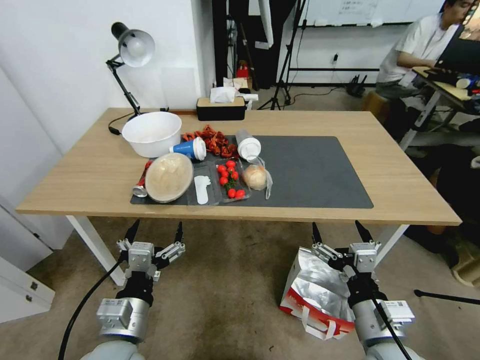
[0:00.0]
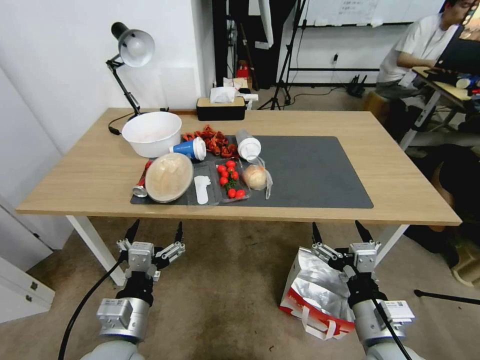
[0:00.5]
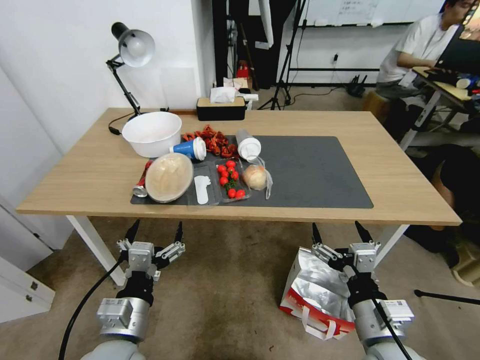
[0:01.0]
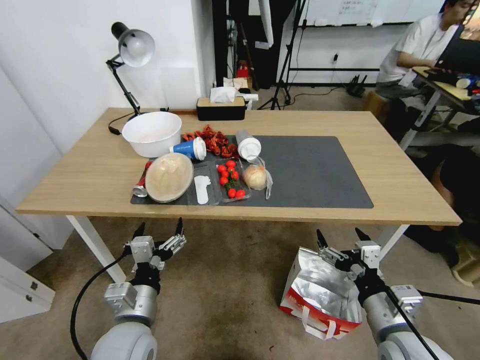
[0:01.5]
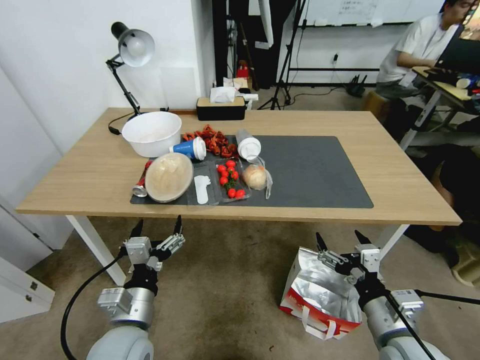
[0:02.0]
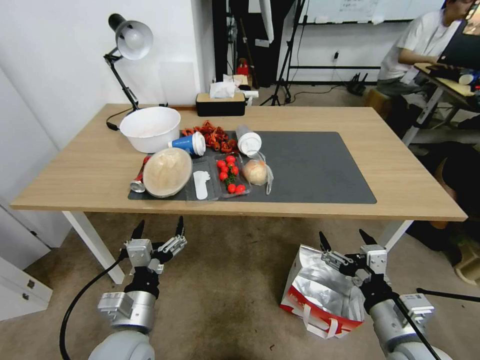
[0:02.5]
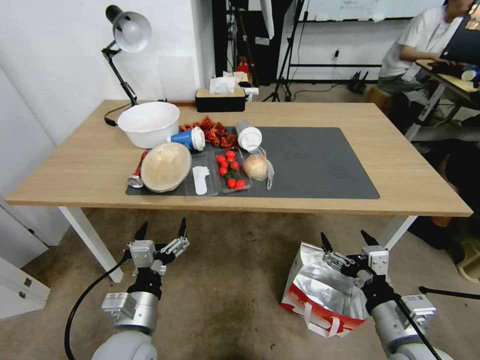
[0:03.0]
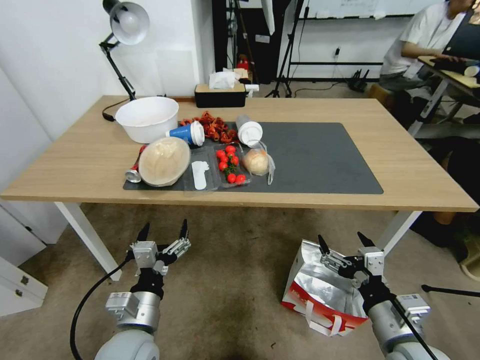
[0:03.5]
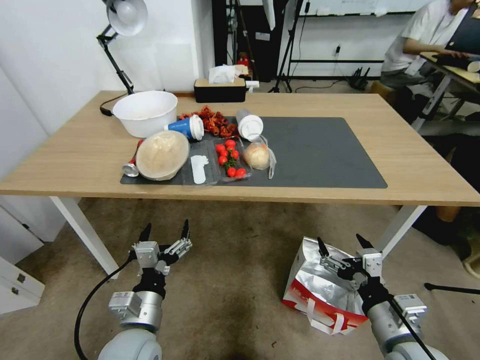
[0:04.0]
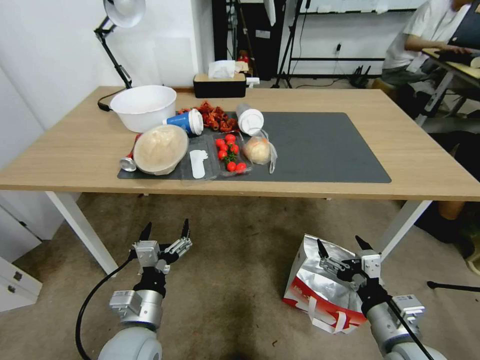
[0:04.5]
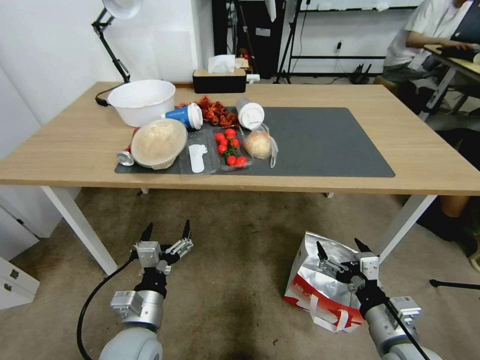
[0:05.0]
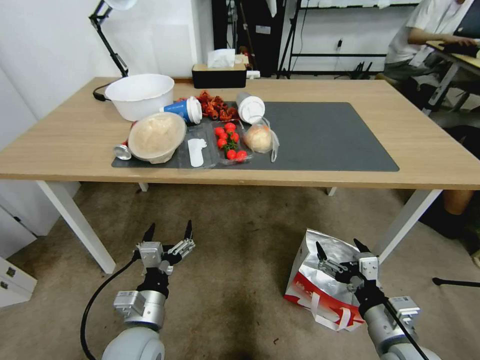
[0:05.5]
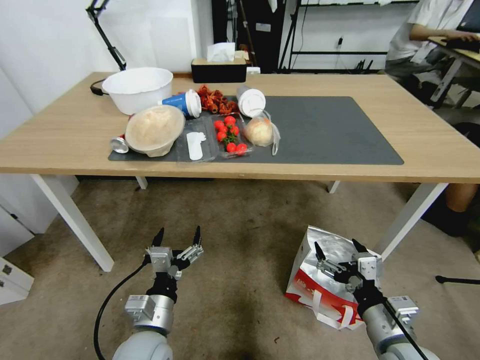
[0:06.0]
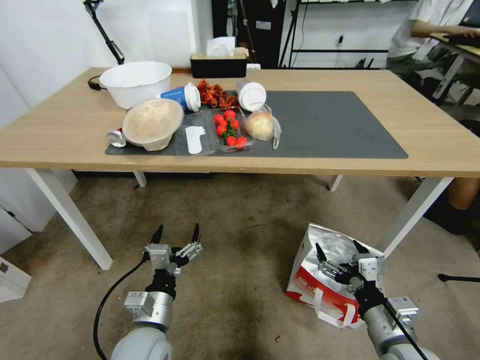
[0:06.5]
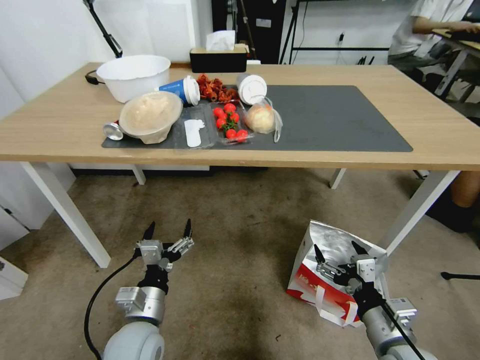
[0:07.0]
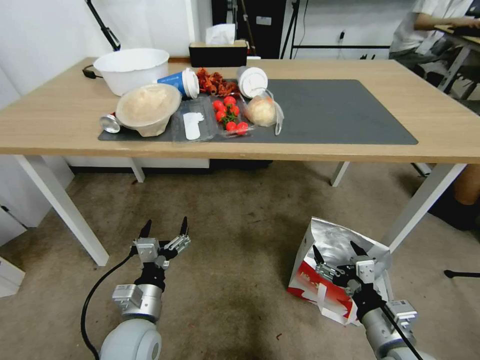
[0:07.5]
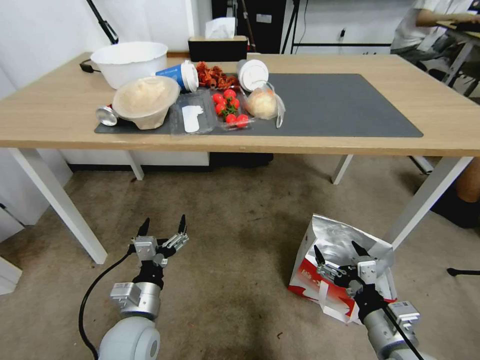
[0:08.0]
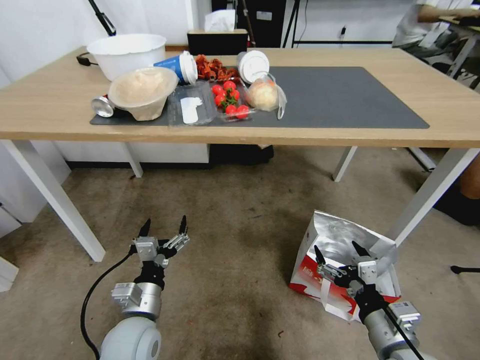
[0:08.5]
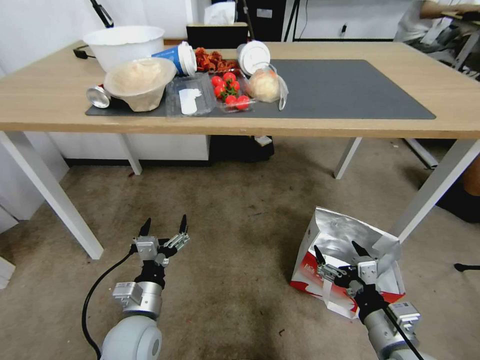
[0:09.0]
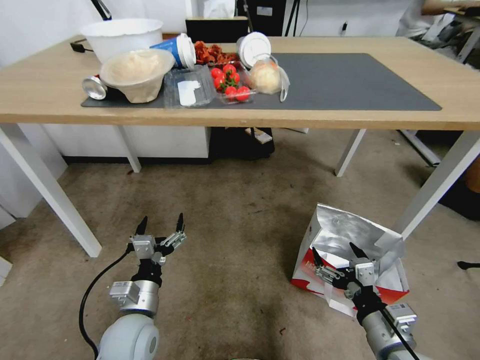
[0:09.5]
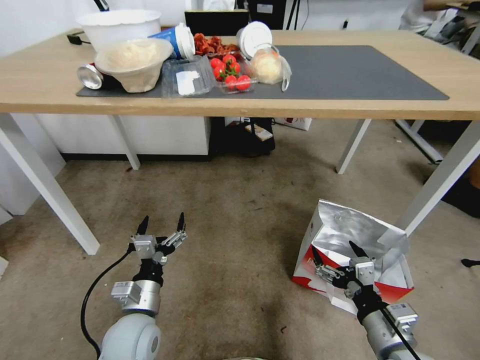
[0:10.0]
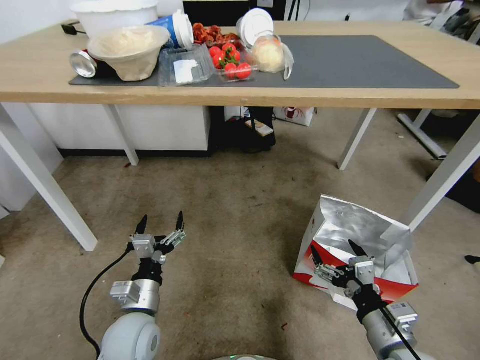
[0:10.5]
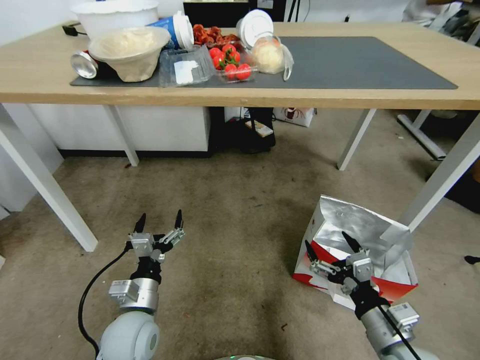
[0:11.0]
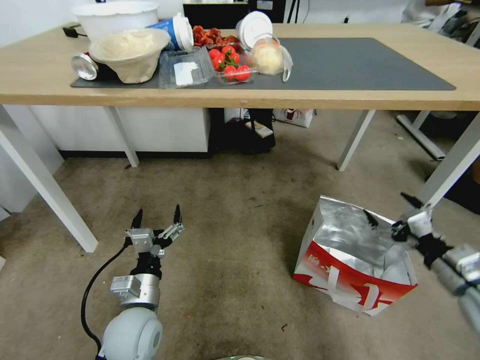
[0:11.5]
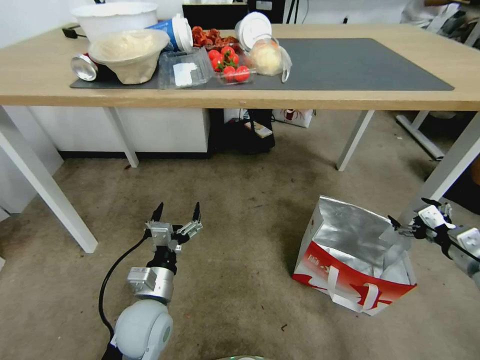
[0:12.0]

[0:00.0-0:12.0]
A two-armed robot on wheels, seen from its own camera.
Task of the whole recording: Pick up the food delivery bag from the floor and place it on the table.
10.0 to 12.0 s: The right gripper goes roughly 25 cm to the right and forward.

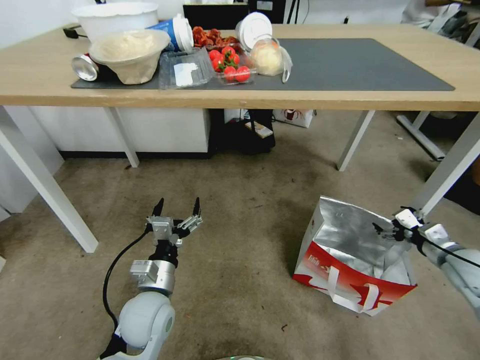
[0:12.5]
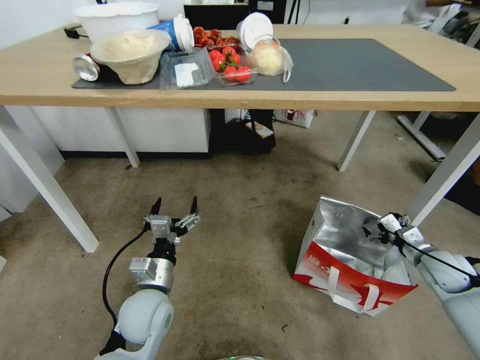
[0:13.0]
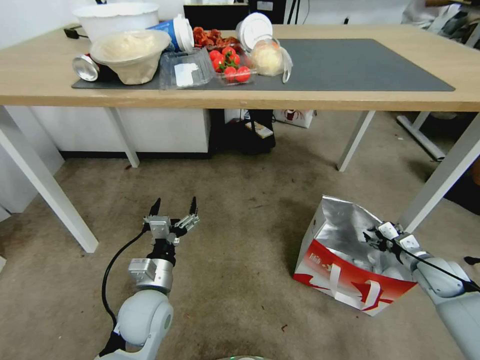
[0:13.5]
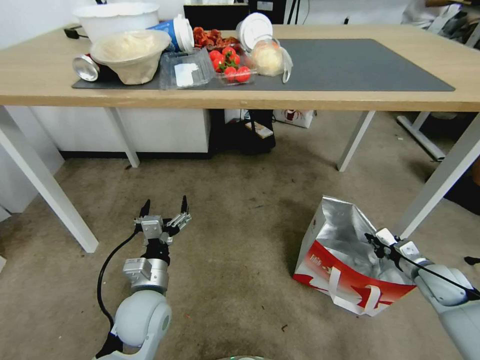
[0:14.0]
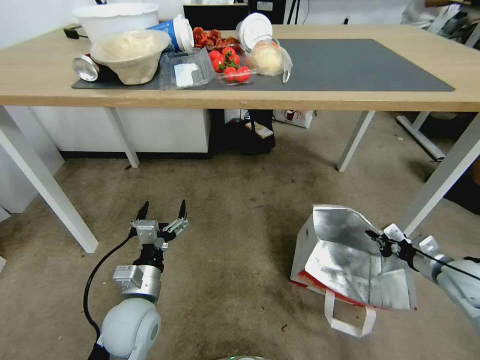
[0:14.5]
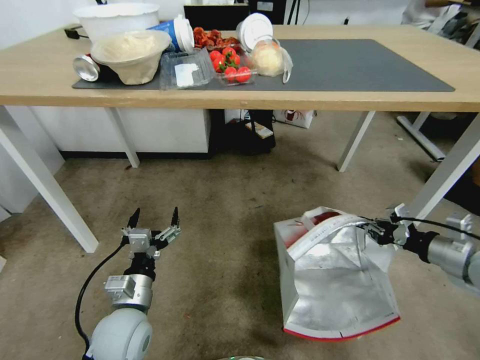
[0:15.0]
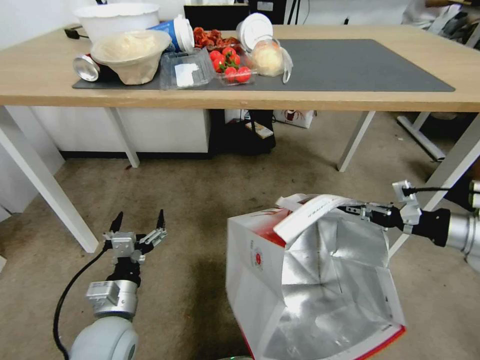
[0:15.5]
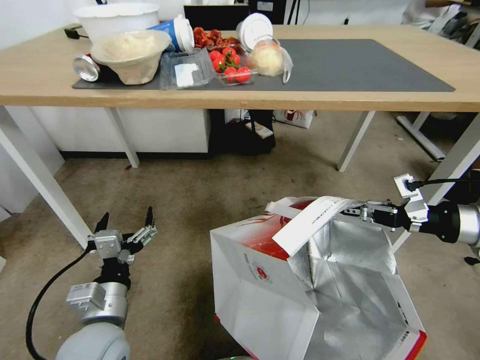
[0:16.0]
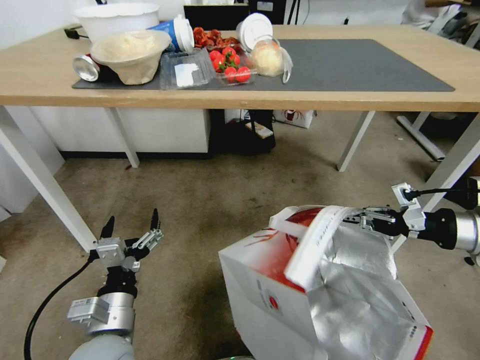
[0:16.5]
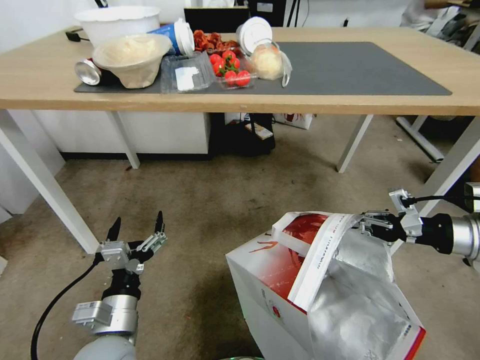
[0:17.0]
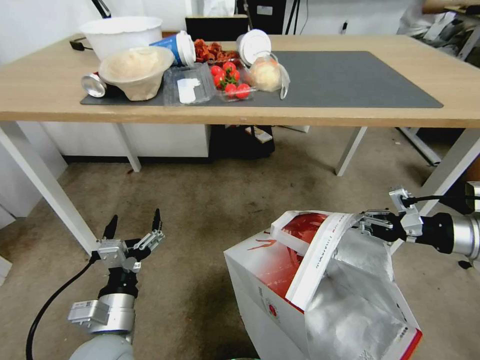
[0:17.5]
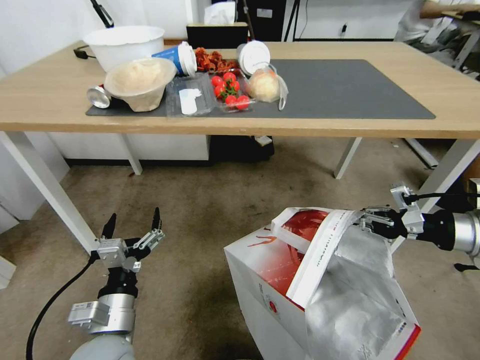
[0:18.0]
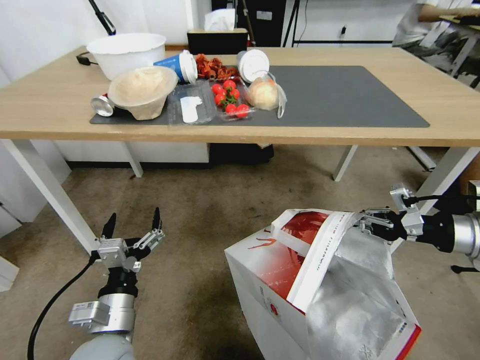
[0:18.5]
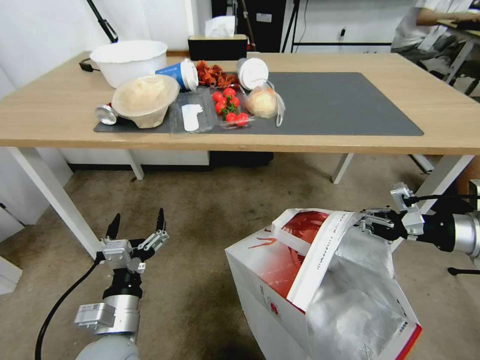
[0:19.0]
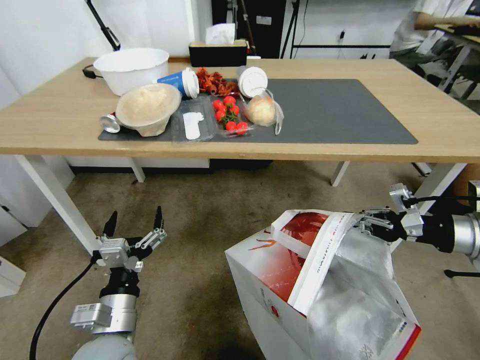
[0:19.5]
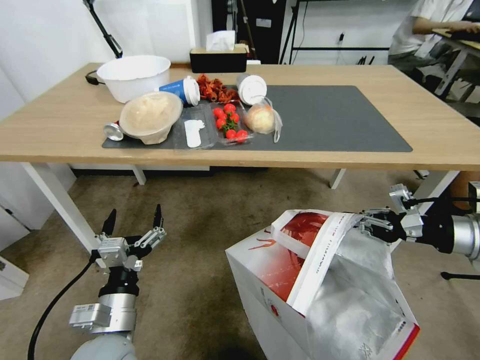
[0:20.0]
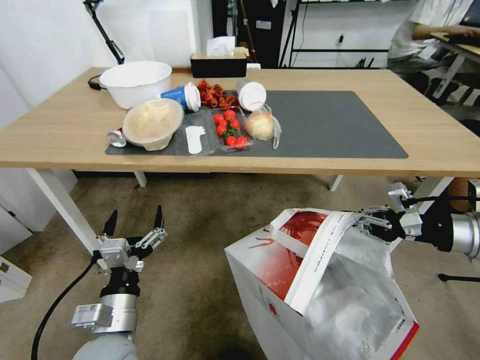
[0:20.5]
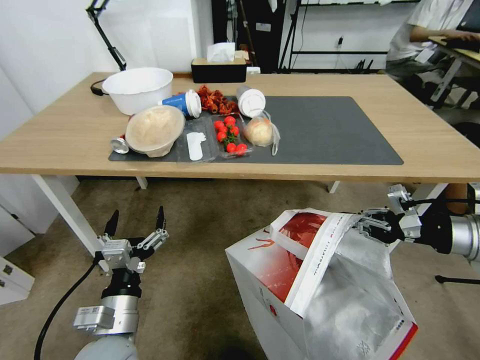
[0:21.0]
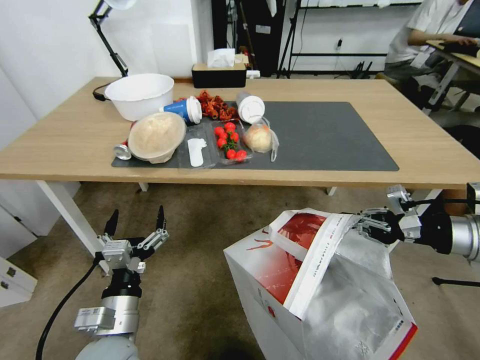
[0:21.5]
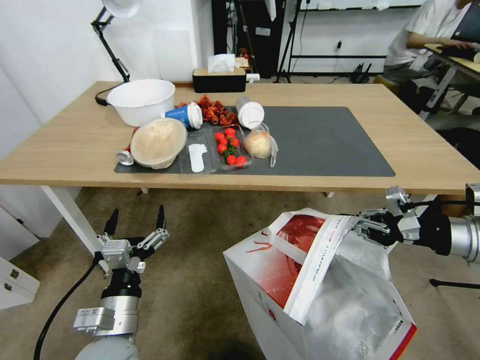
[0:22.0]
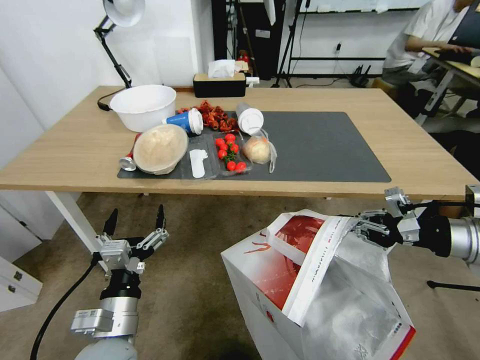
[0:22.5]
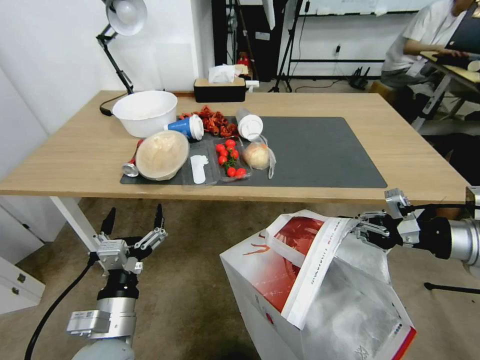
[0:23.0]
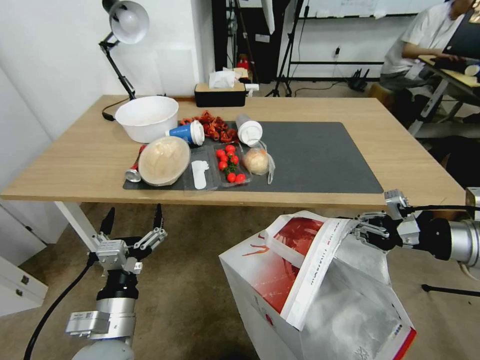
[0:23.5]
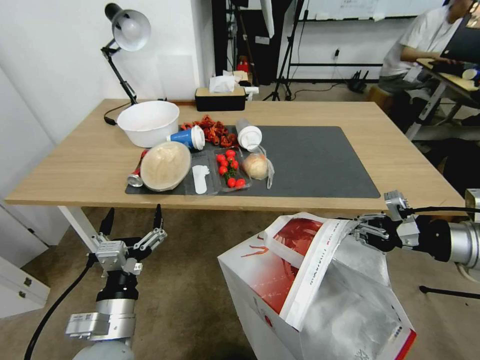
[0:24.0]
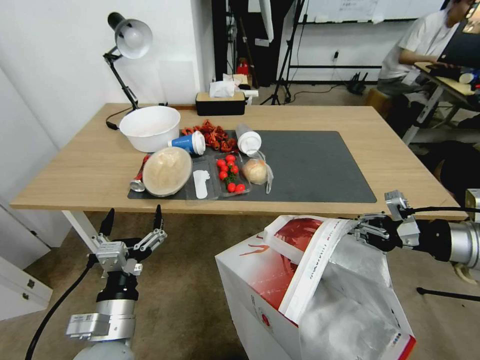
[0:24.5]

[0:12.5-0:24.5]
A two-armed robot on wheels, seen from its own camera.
Task of the whole recording: Pick up the food delivery bag from the floor and place it on the table.
12.5 to 14.5 s: The right gripper moves approximately 10 cm downward and comes back, and closes up.
14.5 to 16.5 s: The right gripper heads upward, covering roughly 20 cm. Meanwhile the left gripper travels backward by roughly 5 cm.

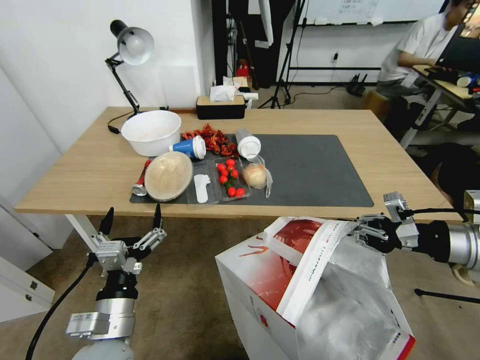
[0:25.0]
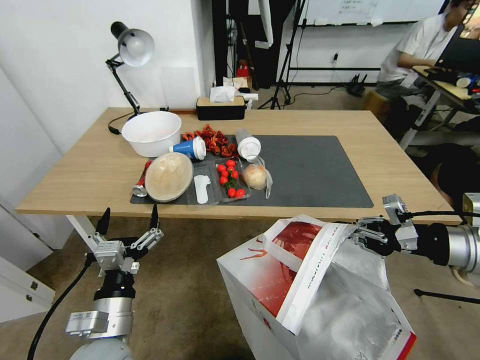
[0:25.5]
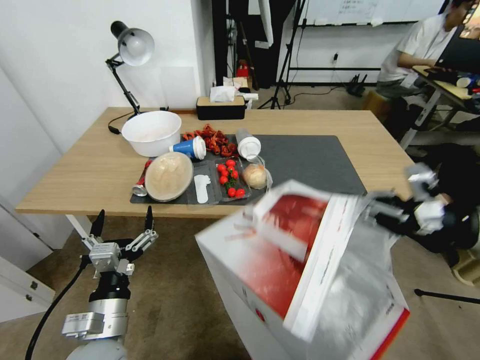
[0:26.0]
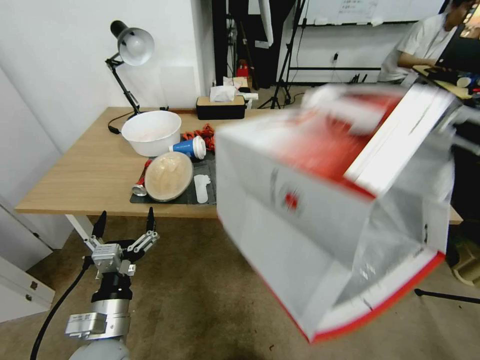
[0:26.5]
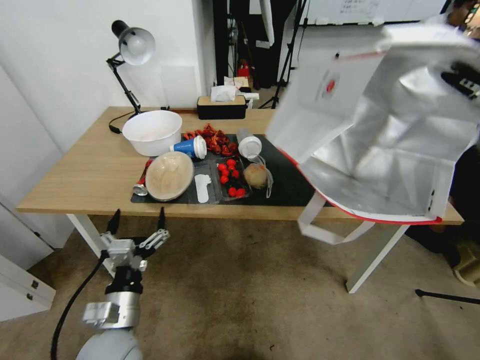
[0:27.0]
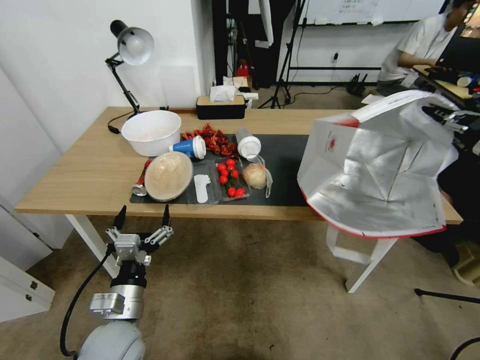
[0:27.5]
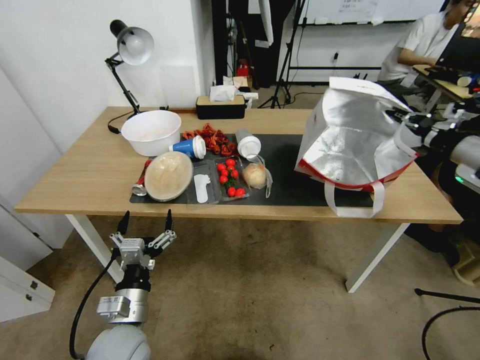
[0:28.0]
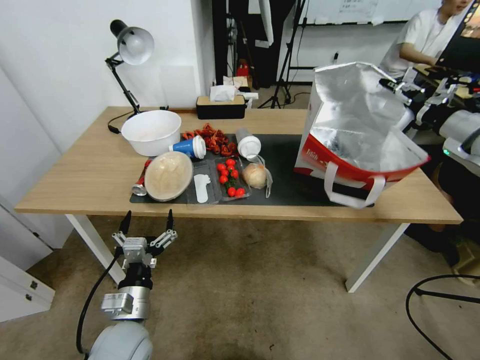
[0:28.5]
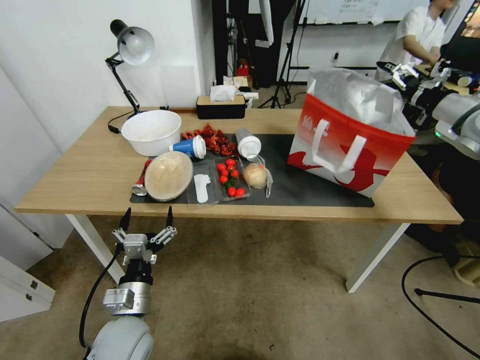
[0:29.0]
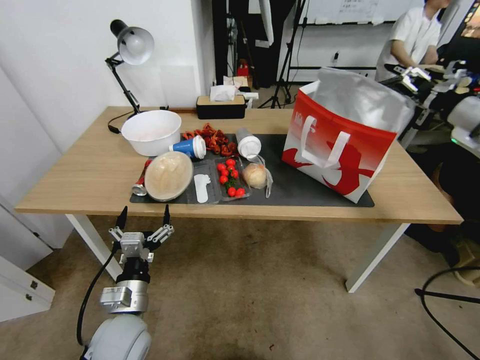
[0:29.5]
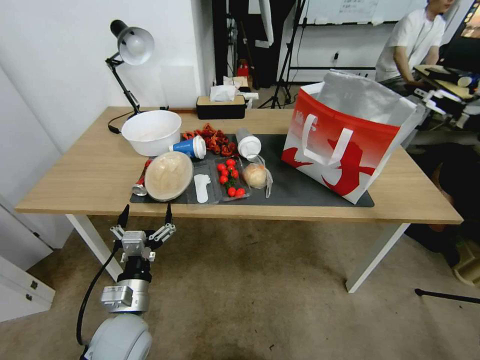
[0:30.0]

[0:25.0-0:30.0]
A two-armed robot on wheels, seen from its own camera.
Task of the whole recording: Pick up the food delivery bag from the floor and place it on the table.
25.0 to 27.5 s: The right gripper goes roughly 10 cm to the right and upward.
27.5 to 30.0 s: The right gripper goes roughly 5 cm forward, and opens up.
